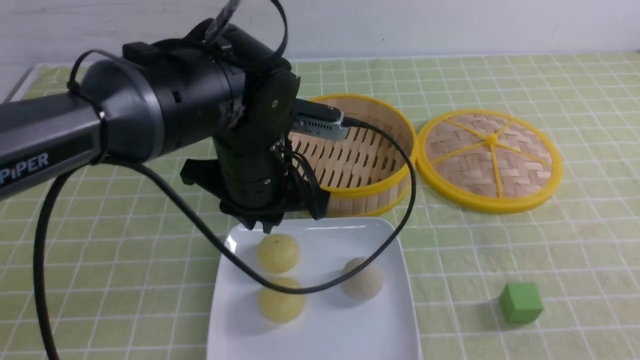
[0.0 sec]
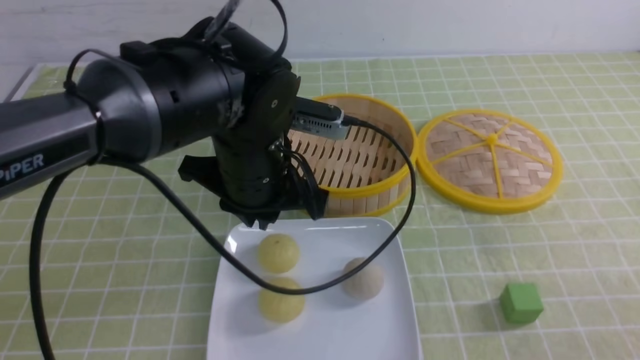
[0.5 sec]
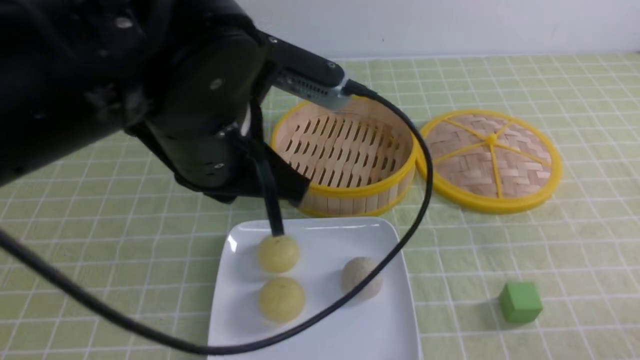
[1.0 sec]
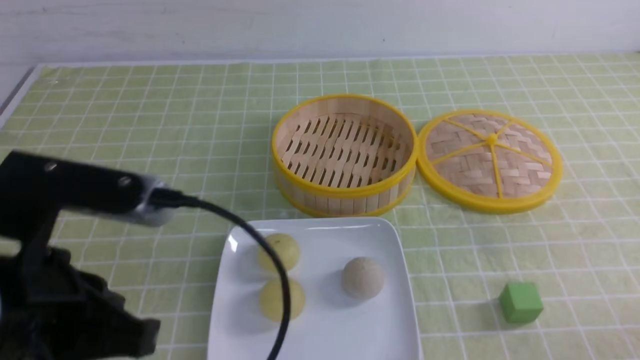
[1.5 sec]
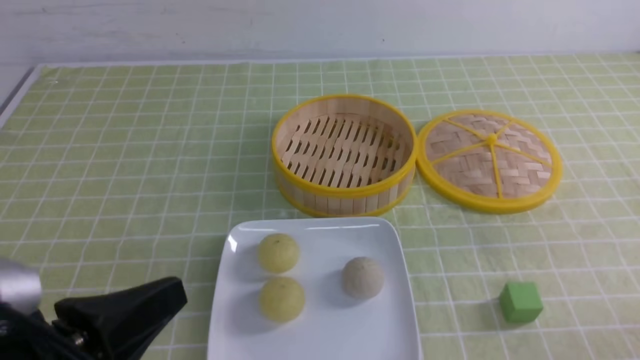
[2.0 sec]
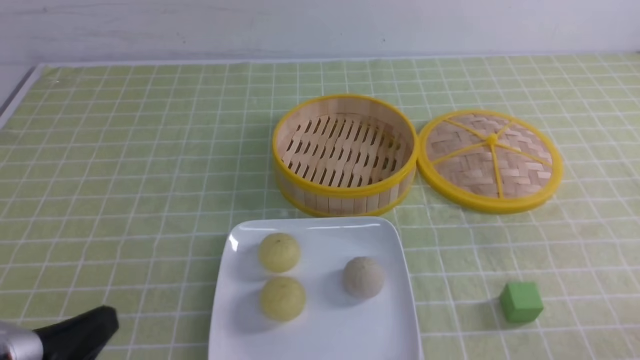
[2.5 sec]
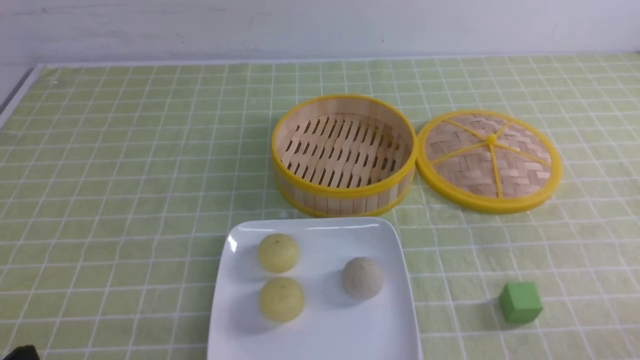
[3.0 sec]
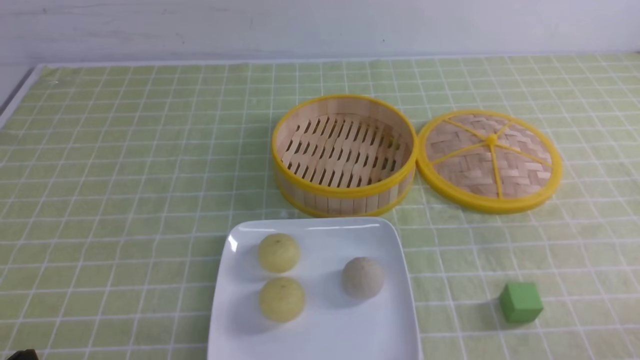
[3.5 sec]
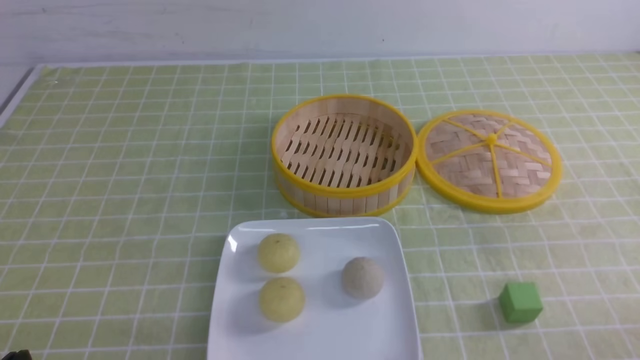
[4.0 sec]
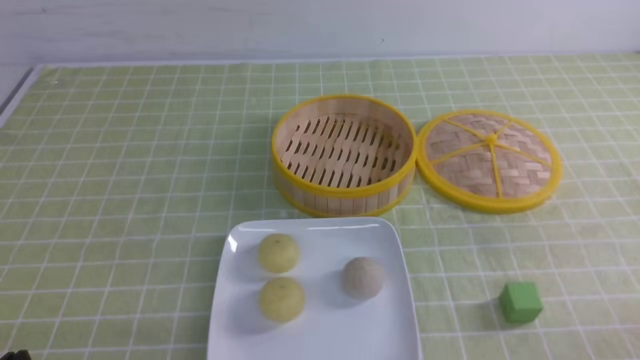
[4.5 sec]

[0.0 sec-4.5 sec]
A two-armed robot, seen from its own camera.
0.0 sec to 2.0 sec: The left gripper is displaced backward and to the left by some 25 cm. Meanwhile the right gripper travels downward by some 10 cm.
2.0 sec to 4.5 sec: The left gripper heads downward and to the left, covering roughly 15 cm.
